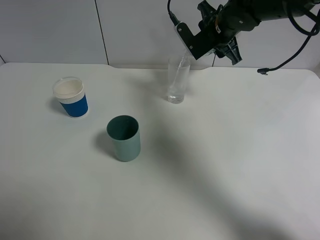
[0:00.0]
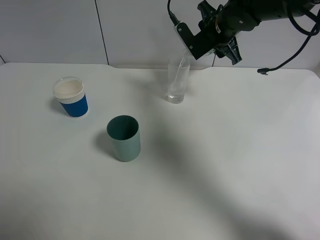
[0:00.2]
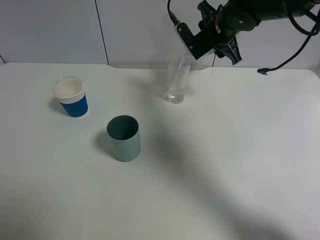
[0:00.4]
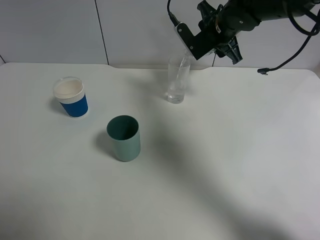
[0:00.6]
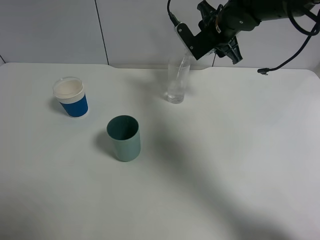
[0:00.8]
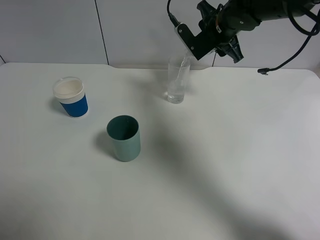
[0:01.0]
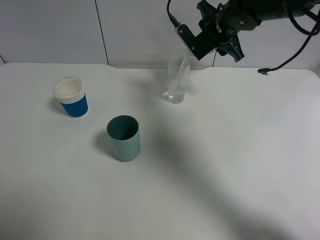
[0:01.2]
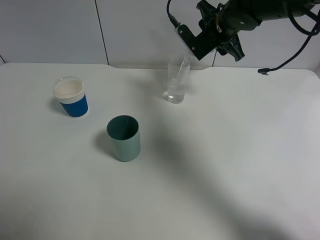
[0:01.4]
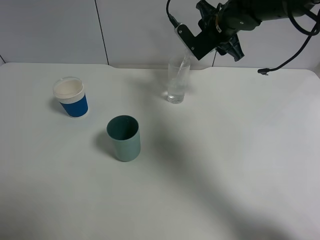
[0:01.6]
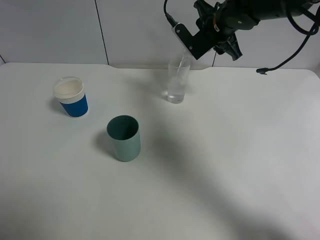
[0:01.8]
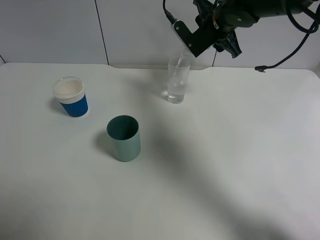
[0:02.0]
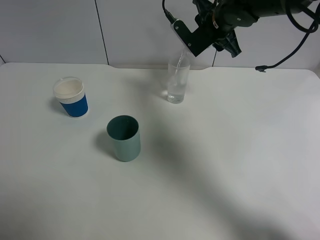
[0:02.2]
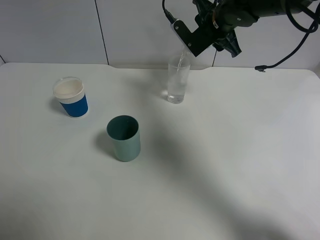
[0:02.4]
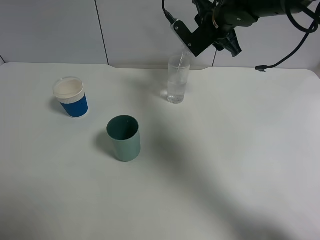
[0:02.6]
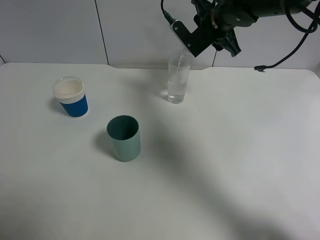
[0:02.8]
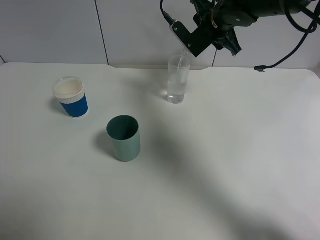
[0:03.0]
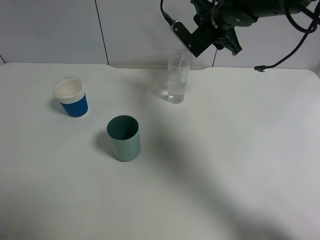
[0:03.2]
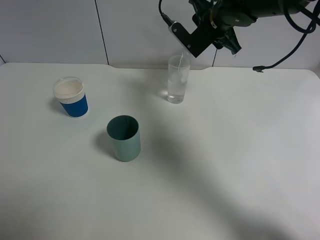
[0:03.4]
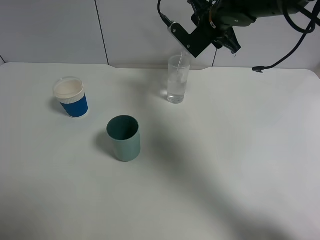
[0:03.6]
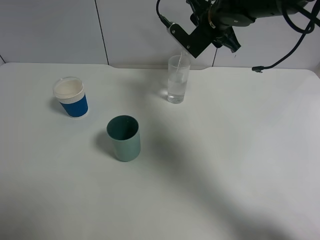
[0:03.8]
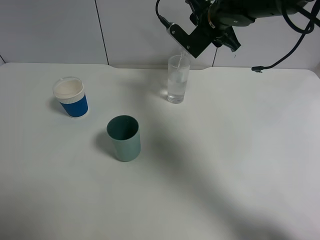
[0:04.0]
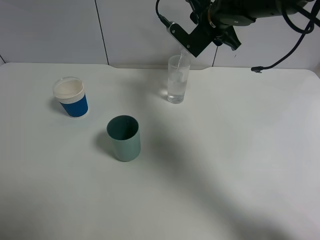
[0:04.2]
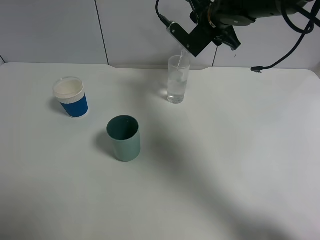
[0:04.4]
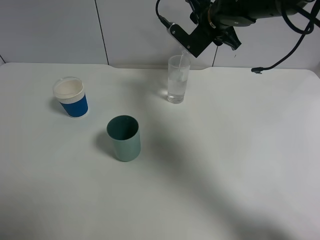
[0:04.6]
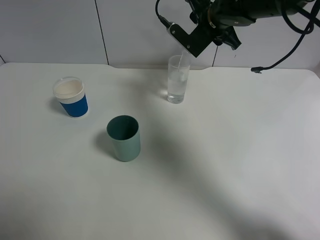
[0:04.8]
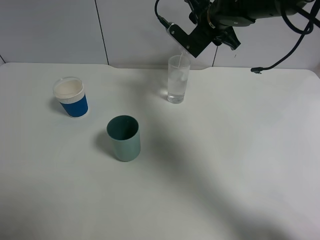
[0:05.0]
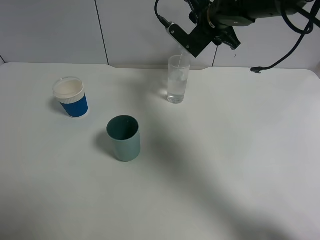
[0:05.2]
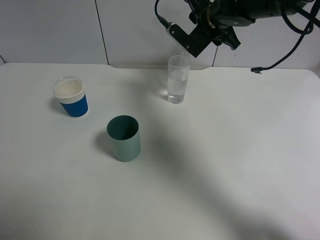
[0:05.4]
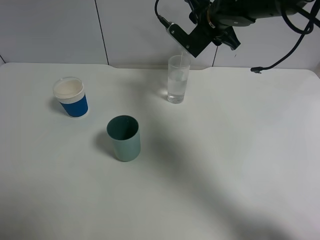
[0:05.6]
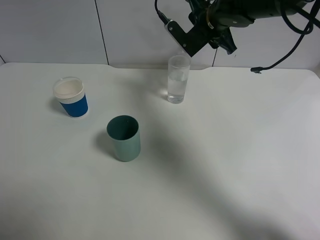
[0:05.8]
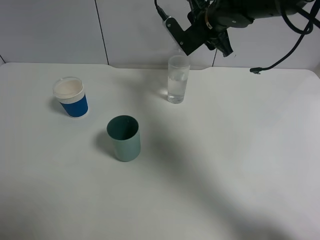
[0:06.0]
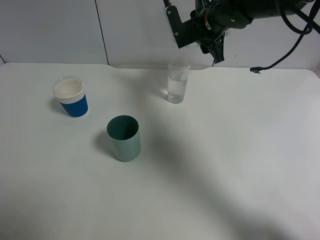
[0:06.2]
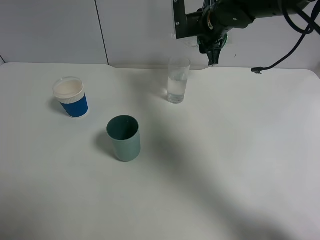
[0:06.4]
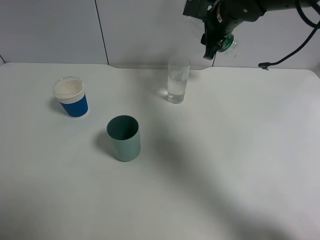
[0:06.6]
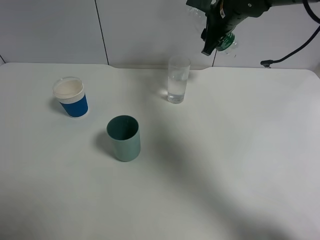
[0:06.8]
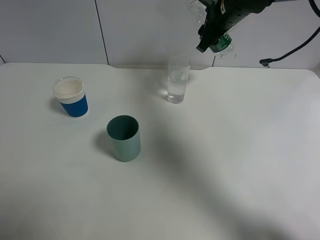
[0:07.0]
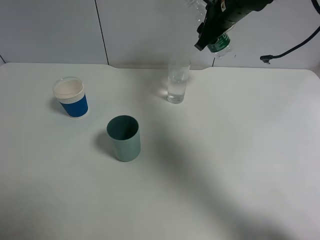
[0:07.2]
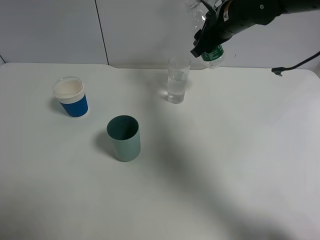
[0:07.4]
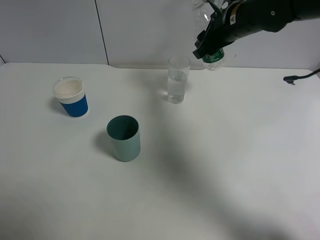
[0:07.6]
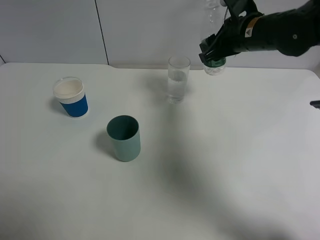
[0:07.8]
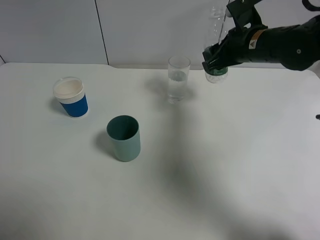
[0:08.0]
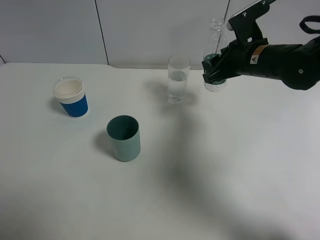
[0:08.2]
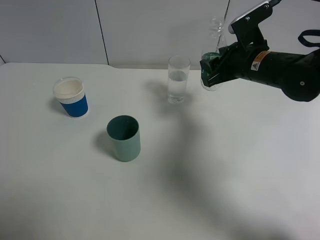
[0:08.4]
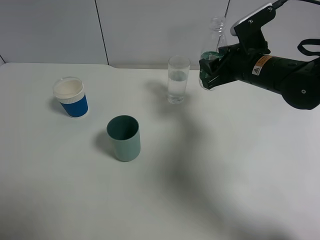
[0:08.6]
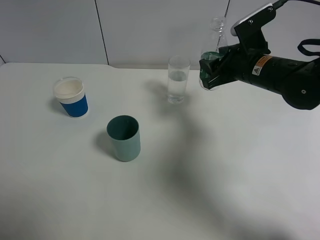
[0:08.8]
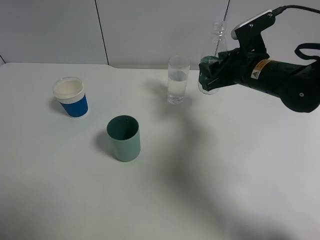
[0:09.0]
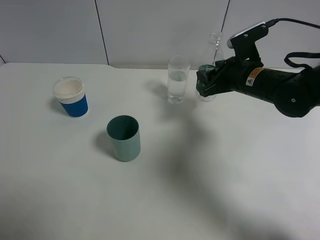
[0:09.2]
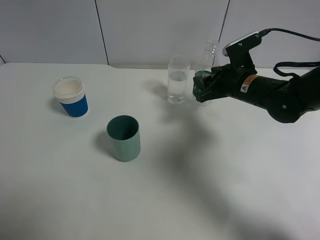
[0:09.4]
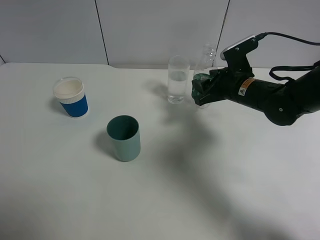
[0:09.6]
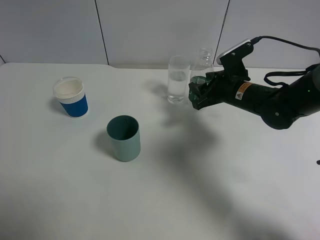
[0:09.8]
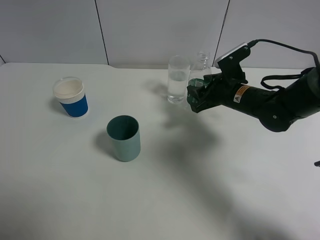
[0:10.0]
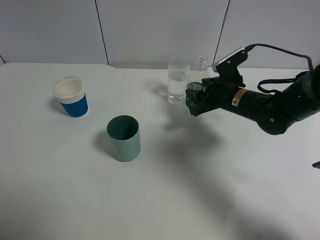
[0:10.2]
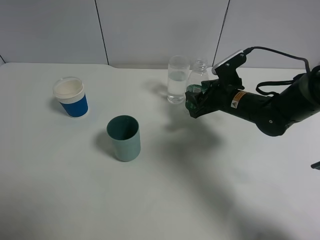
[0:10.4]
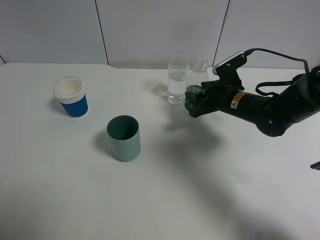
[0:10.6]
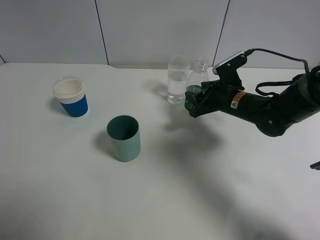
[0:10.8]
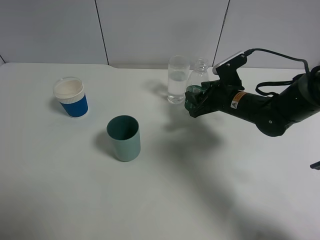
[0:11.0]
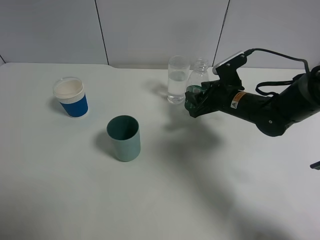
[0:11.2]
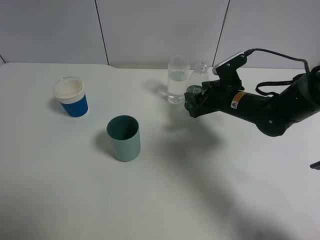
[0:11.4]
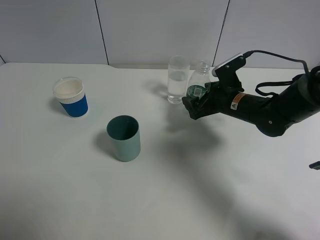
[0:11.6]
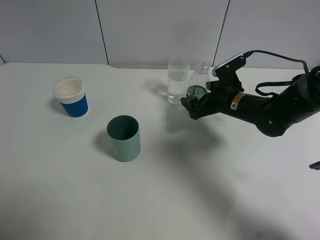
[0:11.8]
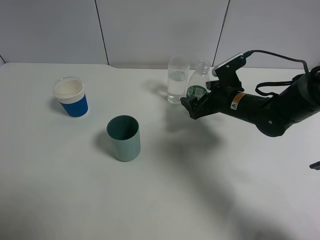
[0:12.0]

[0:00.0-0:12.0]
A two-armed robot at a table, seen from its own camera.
Task of the whole recording: use a gripper to hold the bottle of the drink and pour it into a random cup.
Step, 0:00.0 to 0:06.4: Pour the mineral water into the glass with the right gripper.
0:00.0 to 0:01.6: The grippers make only small movements.
0:01.6 to 0:03.0: Both grippers stay put.
0:03.0 to 0:06.0: The grippers make only small movements.
0:06.0 to 0:07.6: The right gripper shifts by some 5 cm.
0:07.6 to 0:09.0: The right gripper travels downward and backward by some 10 cm.
0:09.0 to 0:10.4: The right gripper heads downward, covering roughly 10 cm.
0:10.4 to 0:12.0: The right gripper opens up.

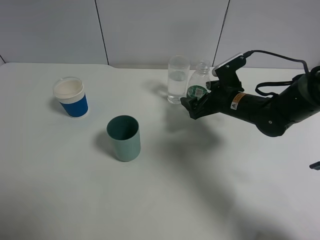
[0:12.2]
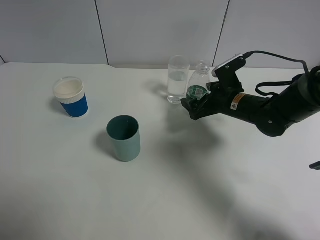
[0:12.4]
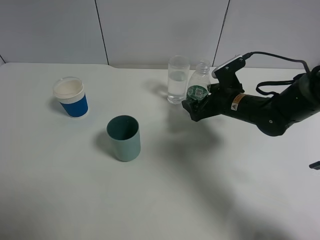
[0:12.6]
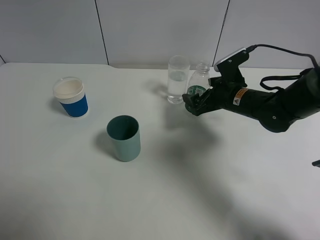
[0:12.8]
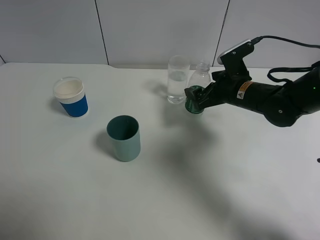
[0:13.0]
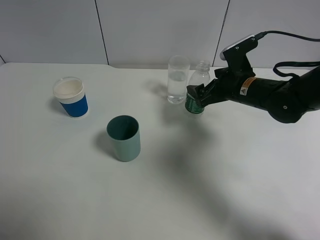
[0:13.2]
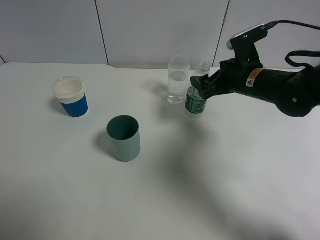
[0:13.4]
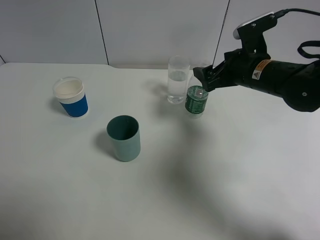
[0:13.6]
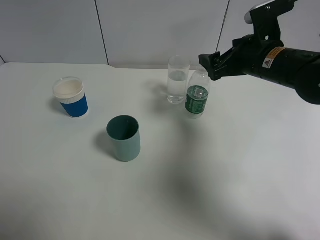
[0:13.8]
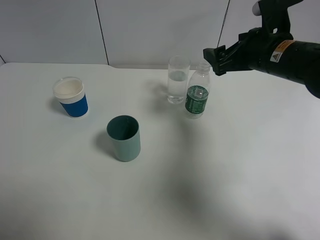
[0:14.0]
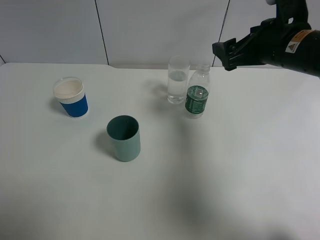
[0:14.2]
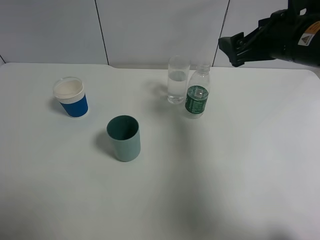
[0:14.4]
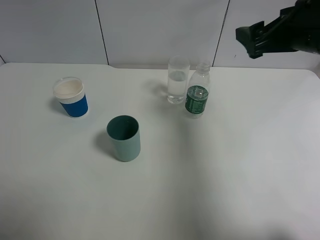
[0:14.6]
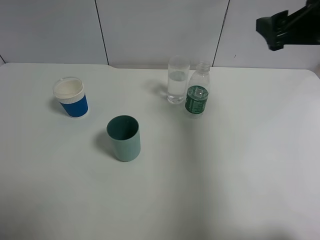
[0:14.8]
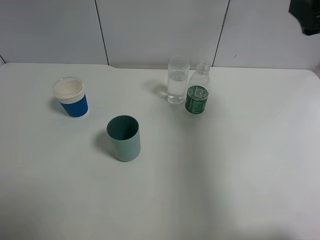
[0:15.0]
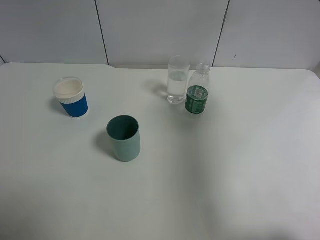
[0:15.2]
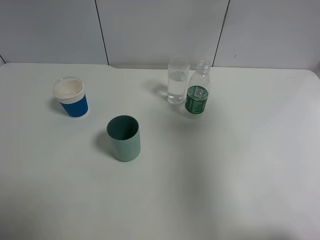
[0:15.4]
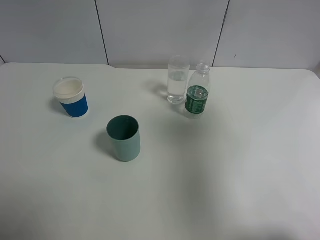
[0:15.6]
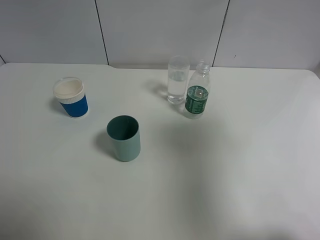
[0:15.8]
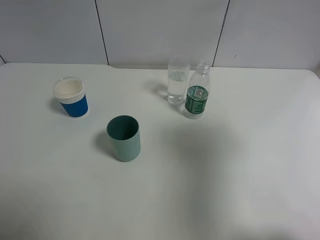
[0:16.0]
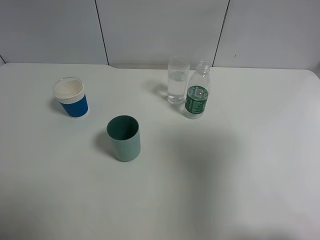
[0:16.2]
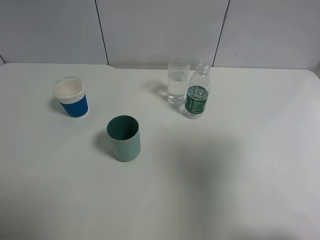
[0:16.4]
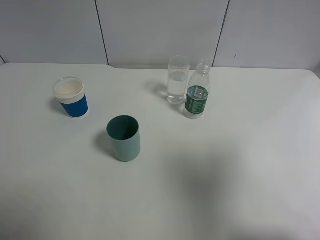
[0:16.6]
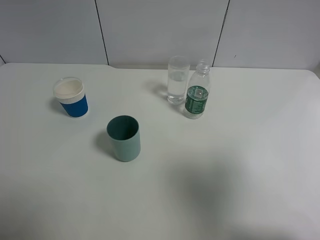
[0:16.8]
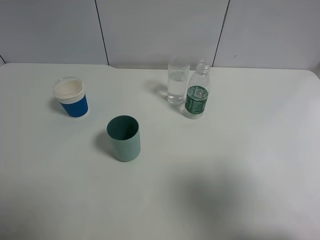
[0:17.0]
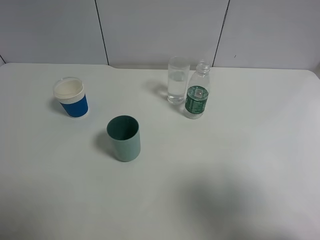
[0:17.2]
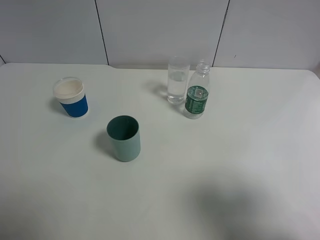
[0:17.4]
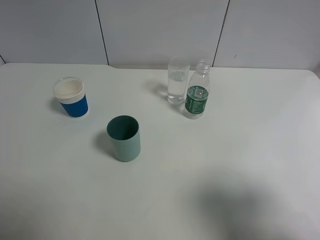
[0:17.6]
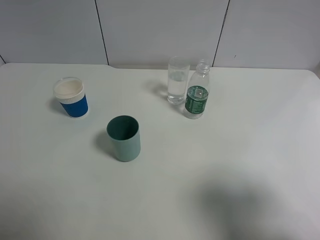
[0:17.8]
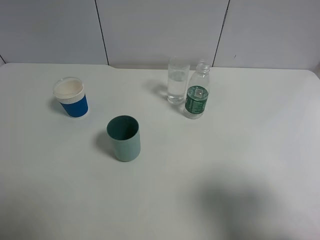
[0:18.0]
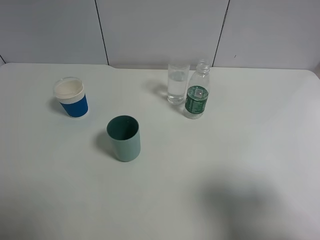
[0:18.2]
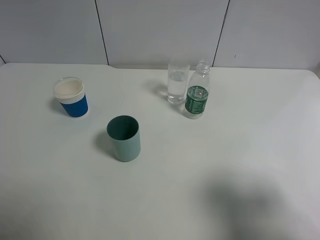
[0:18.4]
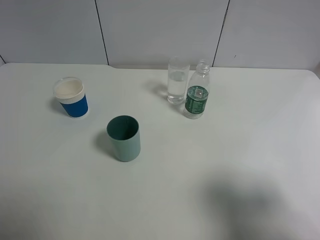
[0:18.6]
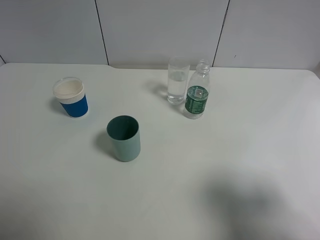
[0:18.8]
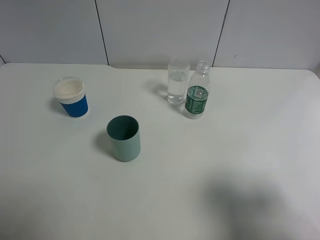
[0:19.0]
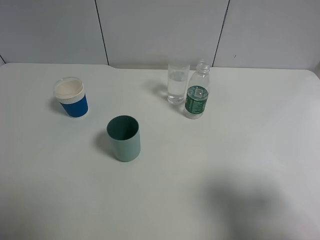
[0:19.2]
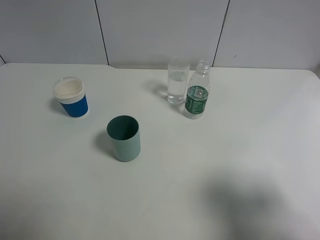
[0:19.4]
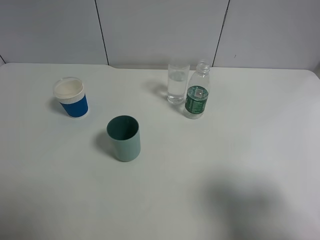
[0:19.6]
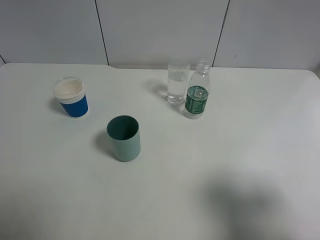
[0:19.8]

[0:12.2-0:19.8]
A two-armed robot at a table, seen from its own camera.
Task of the whole recording: use a gripper to hold the bottle of the drink and pour it into a random cup.
0:12.2 to 0:13.8: The right gripper goes about 10 cm upward.
0:13.8 to 0:15.2: The right gripper is displaced upward, backward and to the right by about 20 cm.
0:15.2 to 0:16.8: The right gripper is displaced backward by some 20 cm.
0:16.8 to 0:18.2: The right gripper goes some 5 cm downward.
0:18.2 to 0:19.8: Both grippers stay put.
